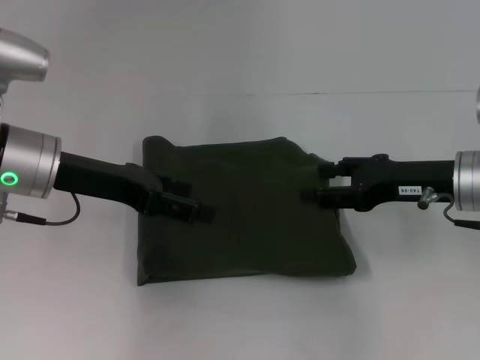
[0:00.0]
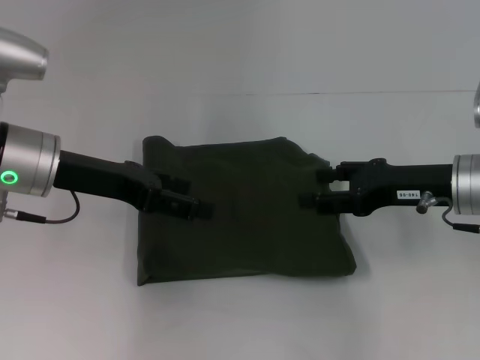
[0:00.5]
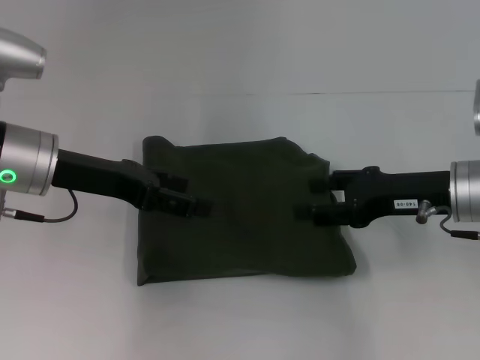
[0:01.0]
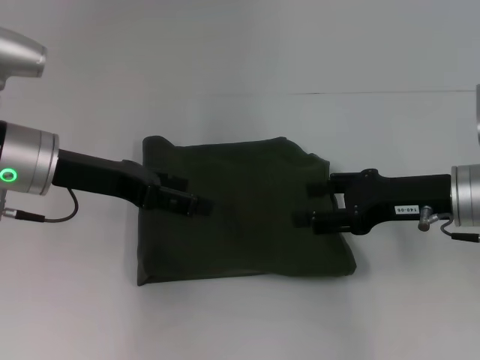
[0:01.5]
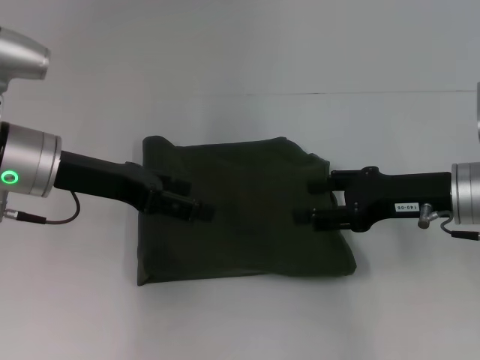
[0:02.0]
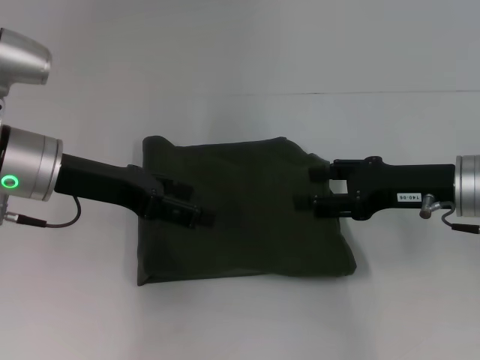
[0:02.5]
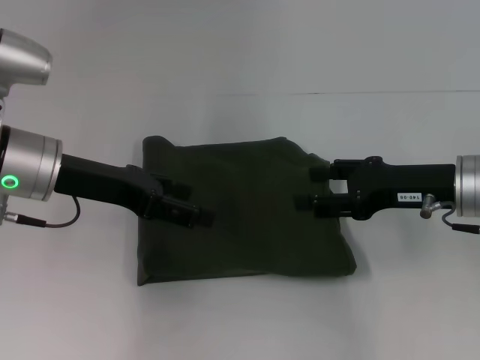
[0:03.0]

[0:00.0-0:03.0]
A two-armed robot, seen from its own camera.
0:00.0 to 0:01.5: The grippers move only a little.
0:01.5 to 0:03.0: The two grippers keep their place.

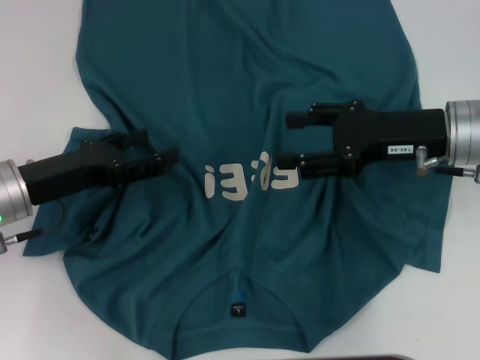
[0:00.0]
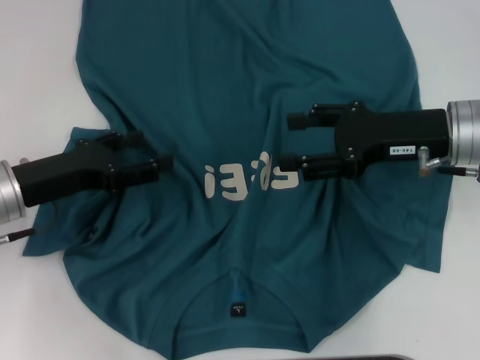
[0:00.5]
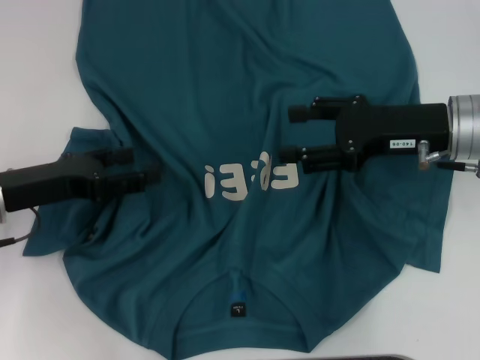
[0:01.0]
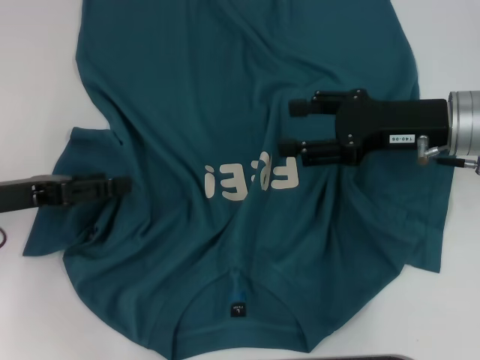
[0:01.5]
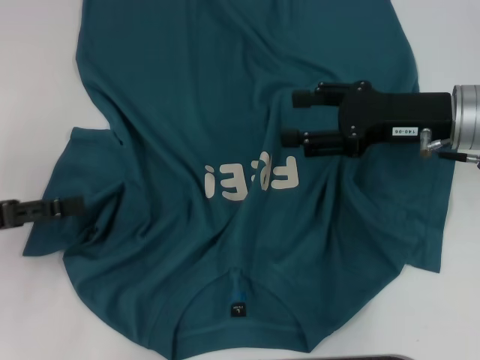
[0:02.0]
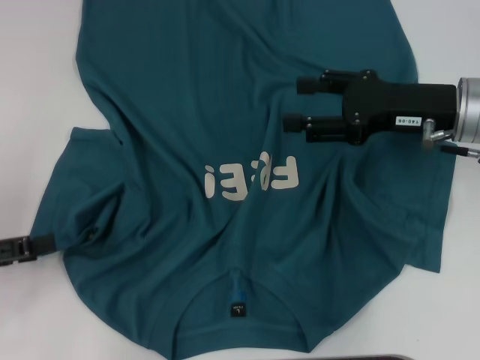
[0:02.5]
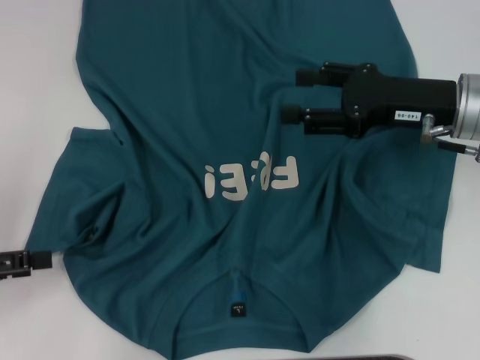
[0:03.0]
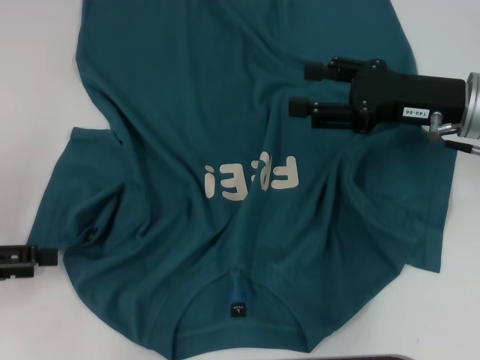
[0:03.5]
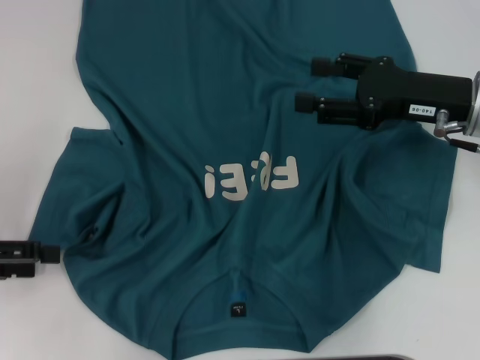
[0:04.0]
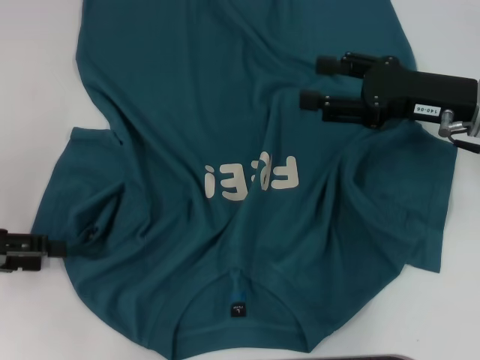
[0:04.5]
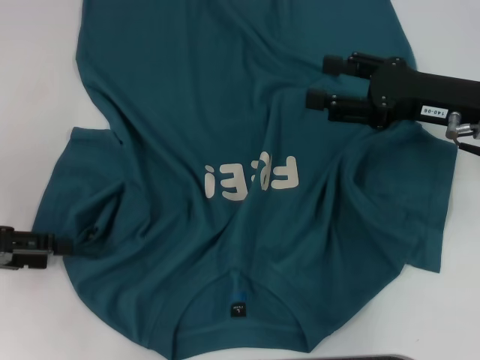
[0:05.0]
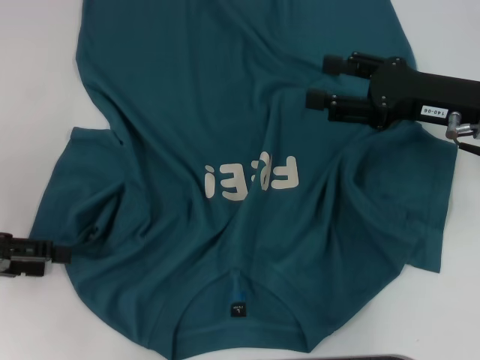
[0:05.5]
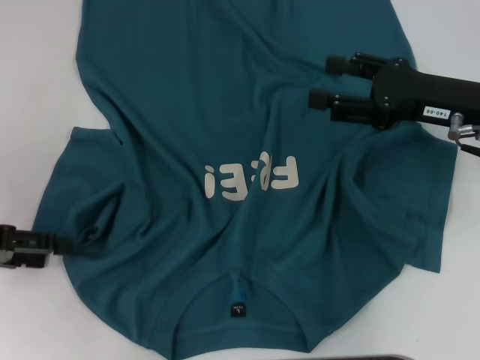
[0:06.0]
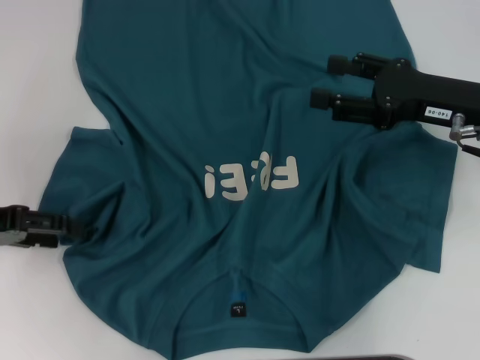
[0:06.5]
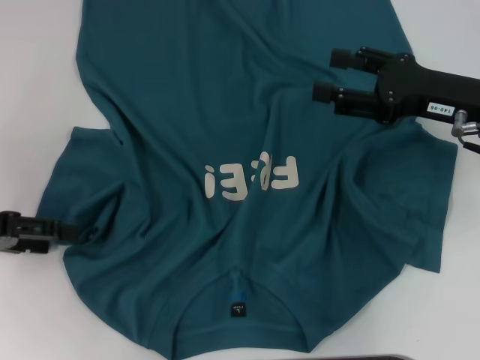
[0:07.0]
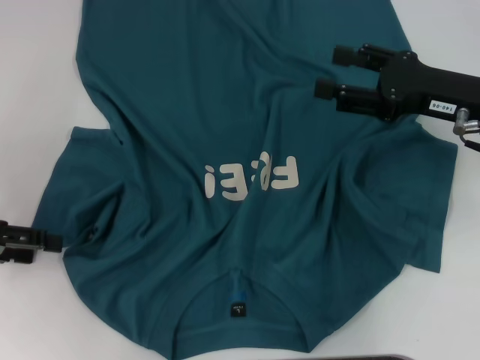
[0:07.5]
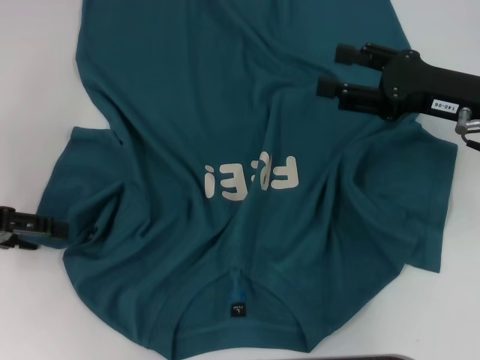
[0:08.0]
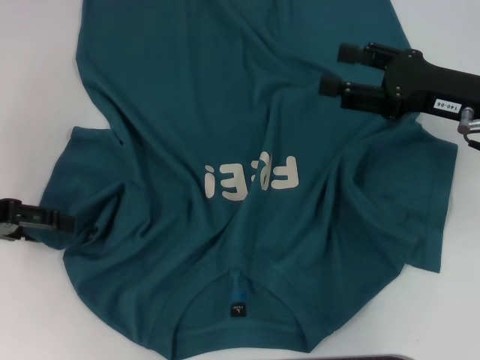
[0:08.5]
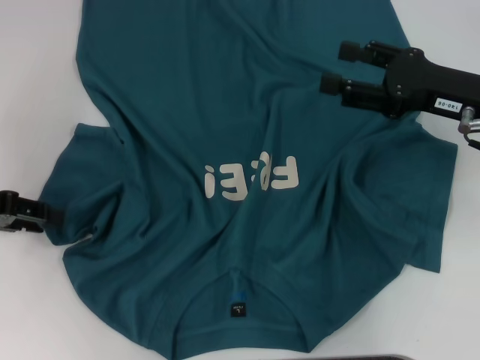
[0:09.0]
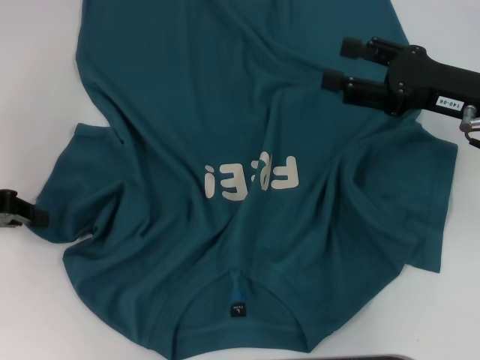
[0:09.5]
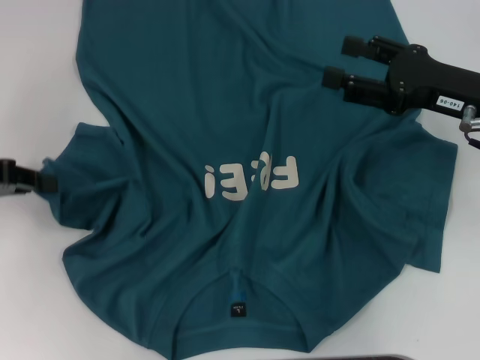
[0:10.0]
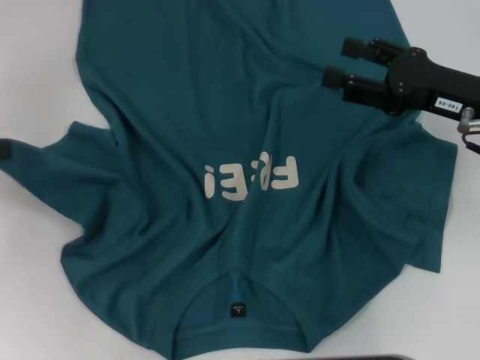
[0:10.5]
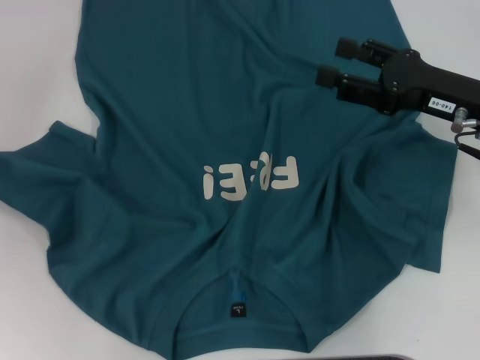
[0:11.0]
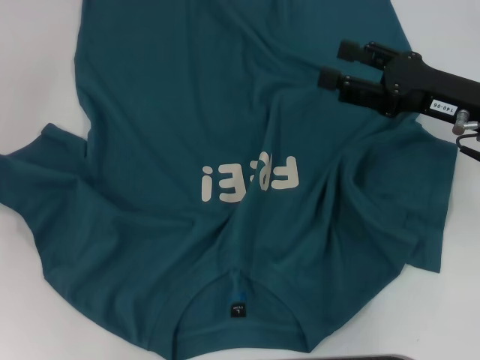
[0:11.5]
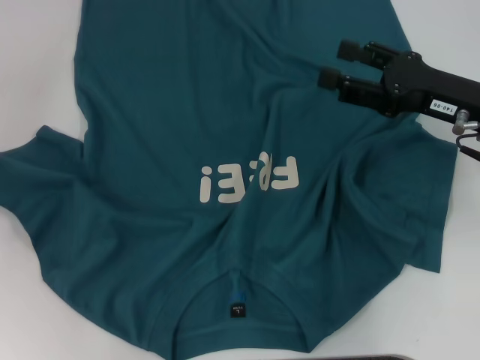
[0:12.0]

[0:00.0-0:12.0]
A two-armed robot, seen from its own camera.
0:00.0 to 0:02.0: The left gripper heads to the left, covering about 10 cm.
0:04.0 to 0:08.0: The grippers move only a little.
0:08.0 to 0:10.0: The left gripper closes its fingers.
0:10.0 to 0:12.0: The left gripper is displaced to the left by some 5 cm.

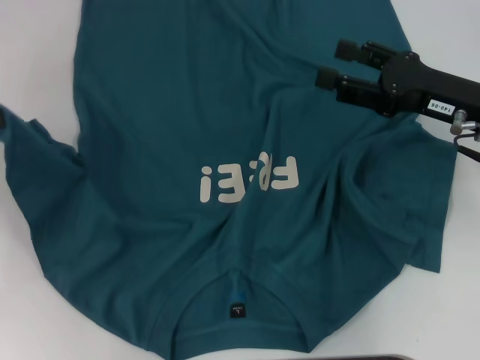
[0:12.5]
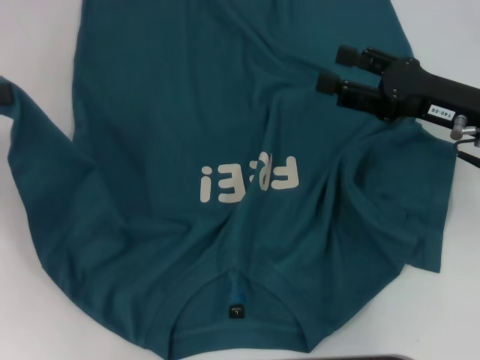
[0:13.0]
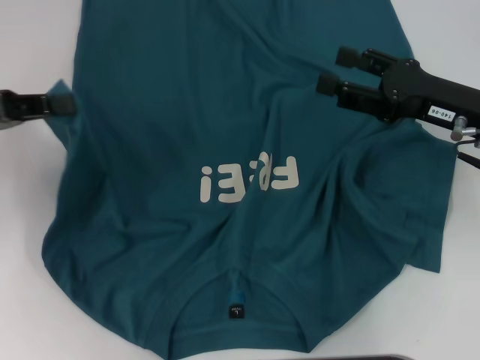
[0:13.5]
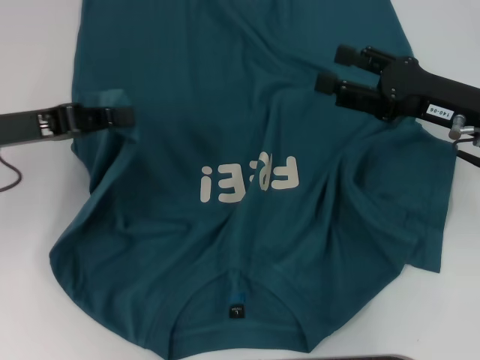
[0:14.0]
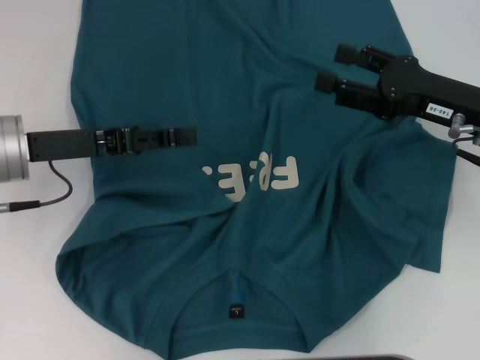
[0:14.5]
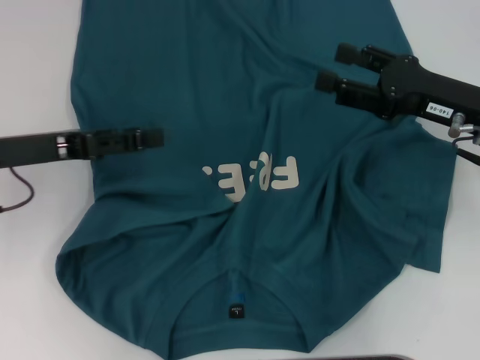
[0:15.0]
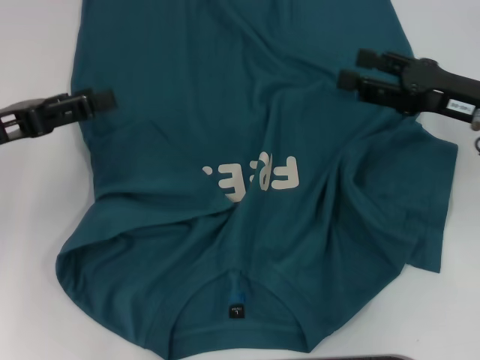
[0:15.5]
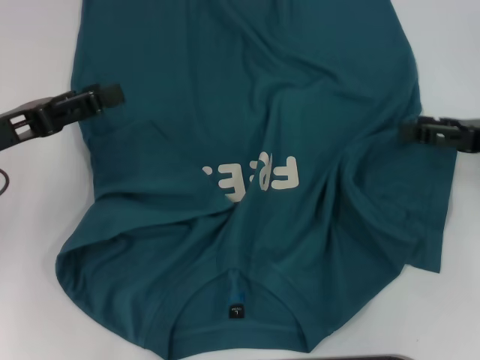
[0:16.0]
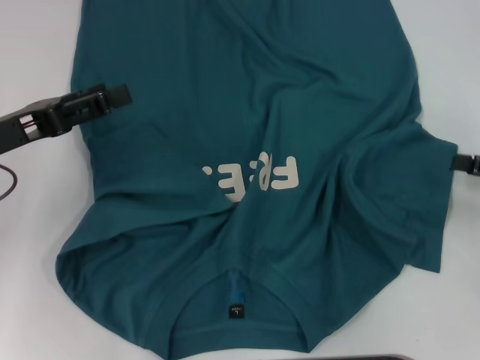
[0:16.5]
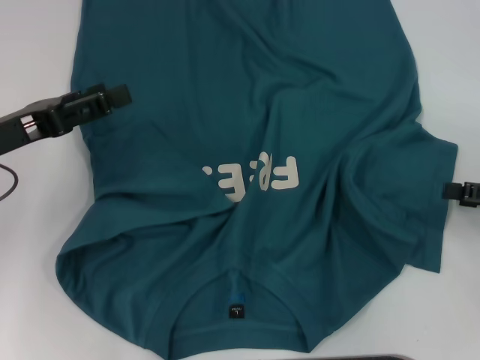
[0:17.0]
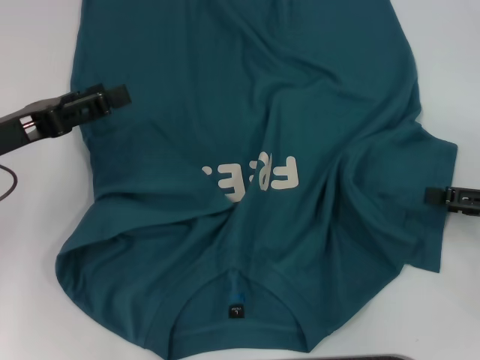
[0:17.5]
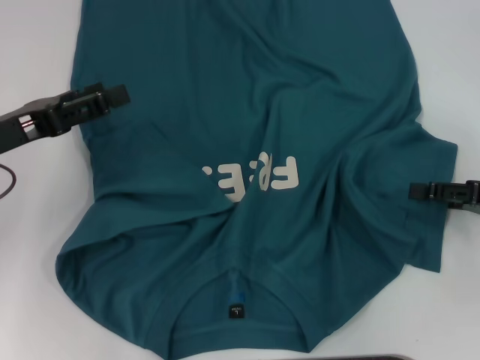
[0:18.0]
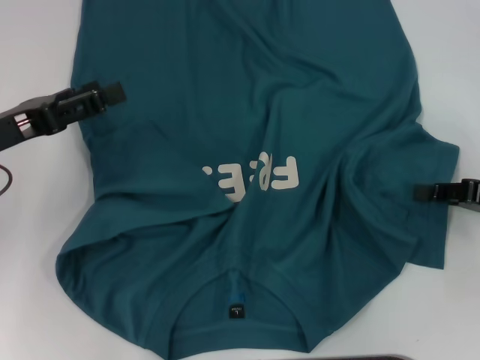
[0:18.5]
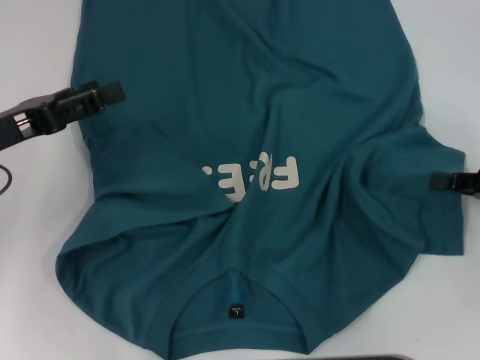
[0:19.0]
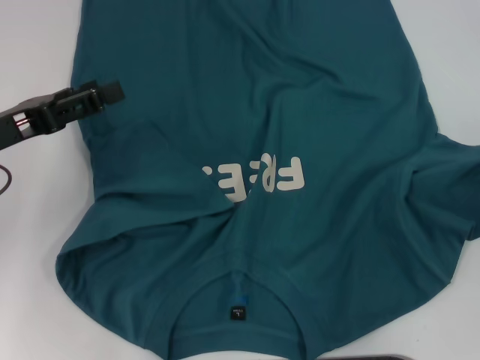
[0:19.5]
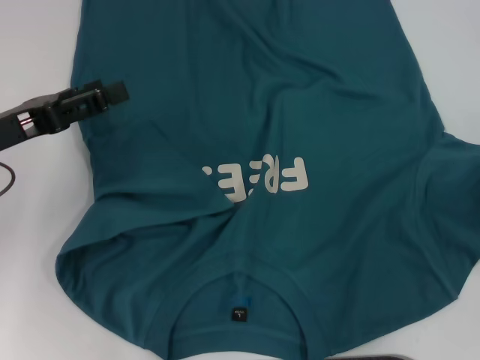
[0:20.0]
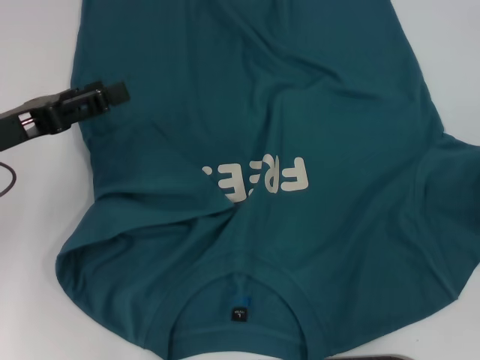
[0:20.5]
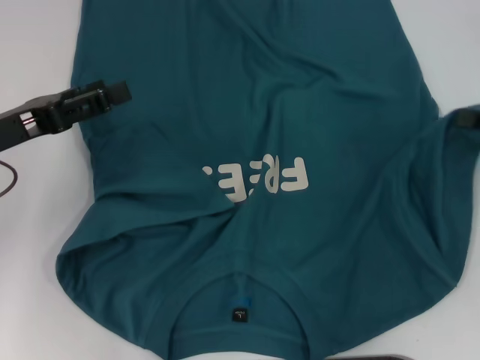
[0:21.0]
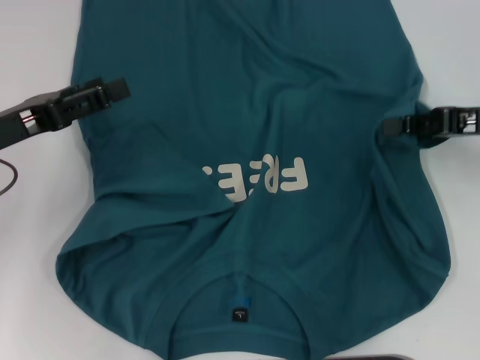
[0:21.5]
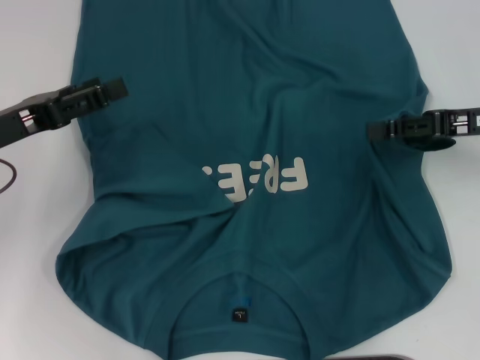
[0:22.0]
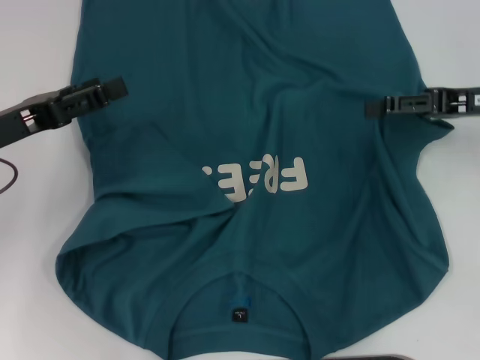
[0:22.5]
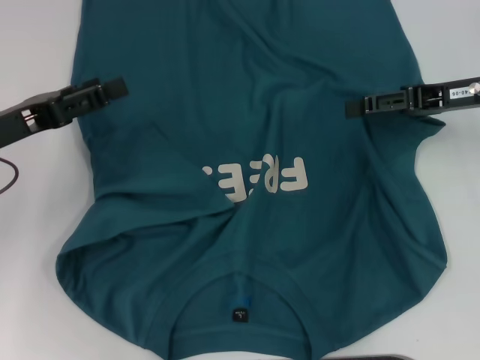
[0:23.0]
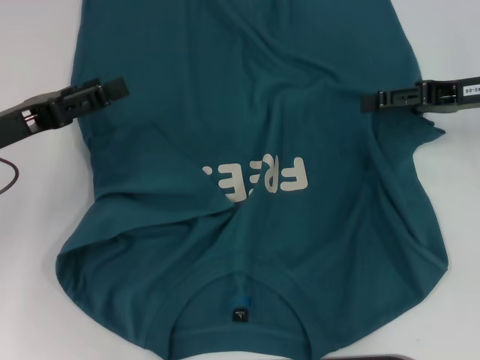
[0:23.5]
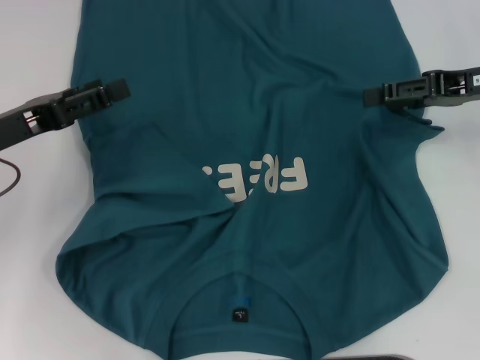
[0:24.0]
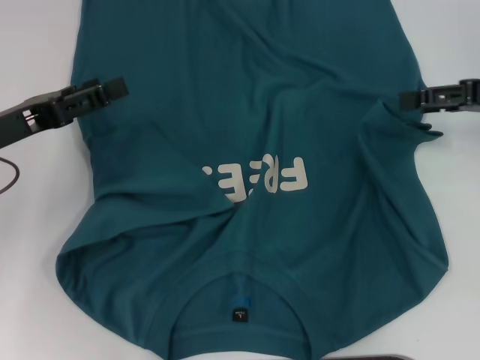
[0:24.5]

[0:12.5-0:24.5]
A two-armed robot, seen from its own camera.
Step, 0:12.5 to 0:14.5: Fold the bottom left sleeve with your left hand.
0:12.5 to 0:14.5: The left gripper heads to the right and downward, covering approximately 15 cm.
0:14.5 to 0:16.5: The right gripper is displaced to the right and backward by roughly 15 cm. The left gripper moves approximately 5 cm, and opens its fingers.
0:16.5 to 0:18.5: The right gripper closes.
0:18.5 to 0:20.5: The right gripper heads to the right, covering roughly 5 cm, and closes.
0:20.5 to 0:22.5: The right gripper is displaced to the left and forward by roughly 15 cm, and opens.
0:22.5 to 0:24.5: The grippers stay close to where they were, moving slightly.
